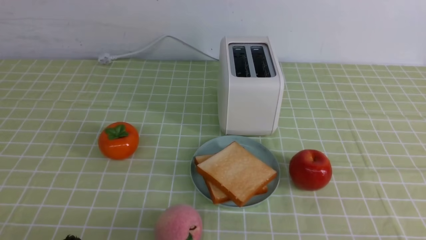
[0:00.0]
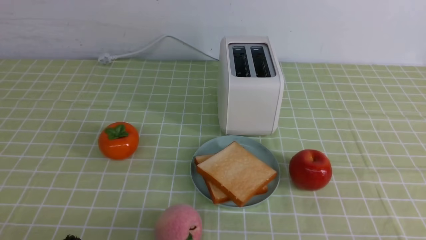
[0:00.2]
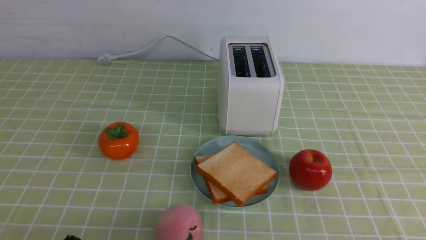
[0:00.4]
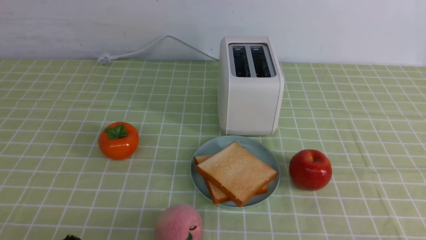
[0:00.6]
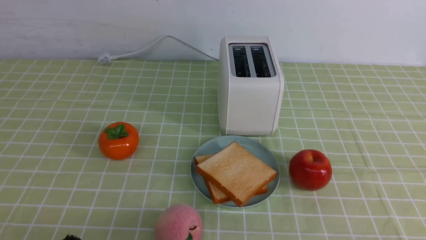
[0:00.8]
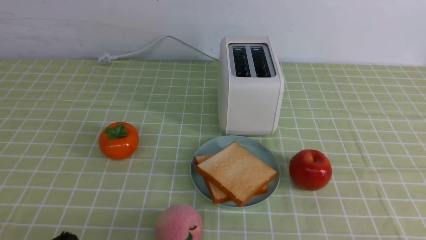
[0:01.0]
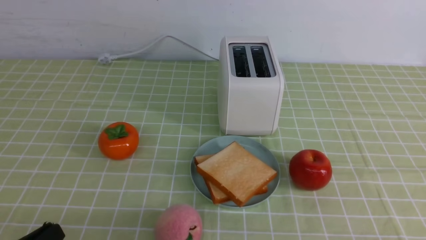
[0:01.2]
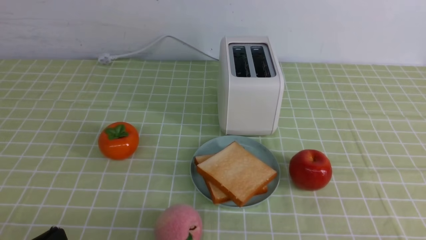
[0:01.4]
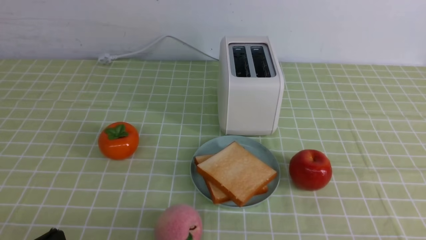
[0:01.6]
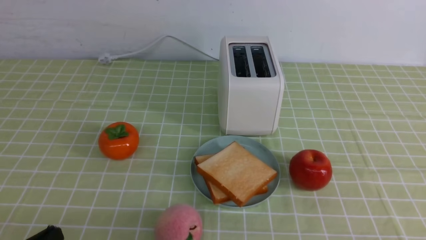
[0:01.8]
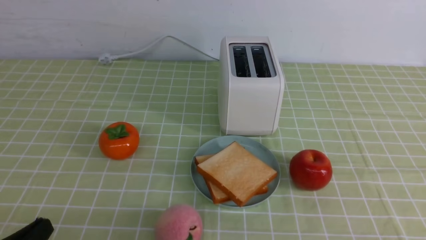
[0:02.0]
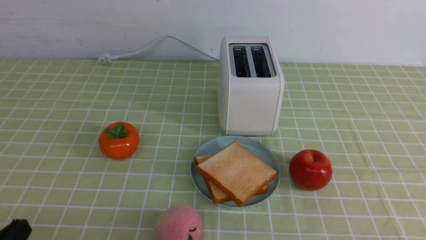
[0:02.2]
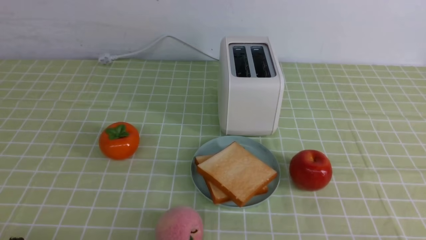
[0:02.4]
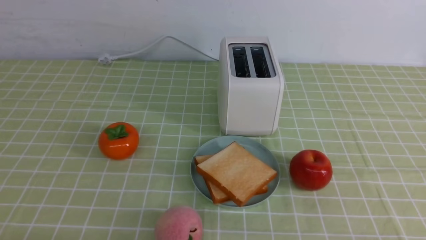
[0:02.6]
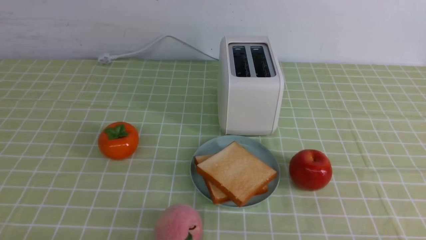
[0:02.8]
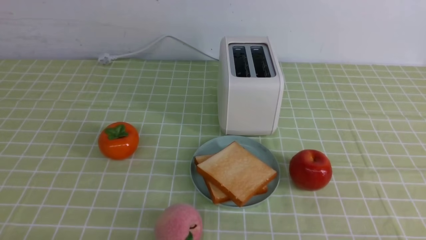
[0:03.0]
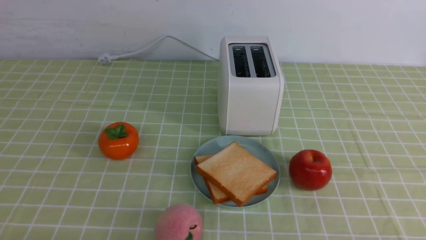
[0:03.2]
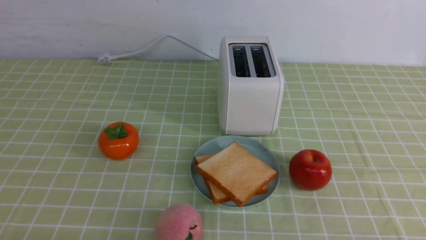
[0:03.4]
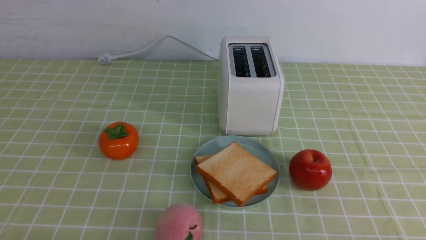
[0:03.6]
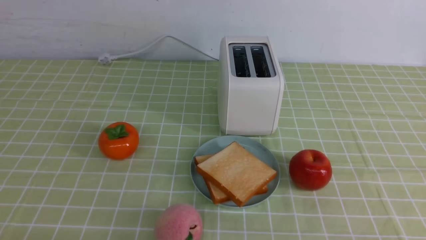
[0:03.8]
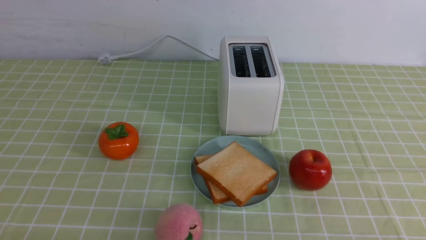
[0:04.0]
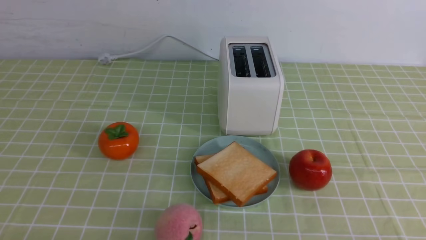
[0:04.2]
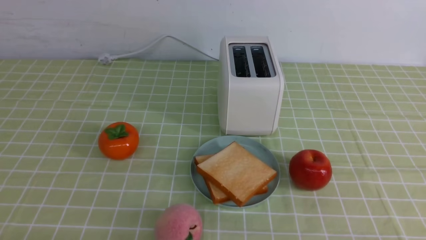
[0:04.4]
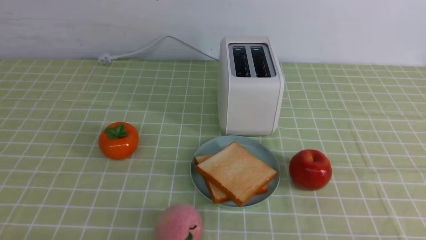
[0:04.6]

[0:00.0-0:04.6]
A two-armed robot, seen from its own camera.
Task of the whole recording: take toasted bread from bread machine on green coffee tablecloth place on plate.
0:03.0 to 0:04.6: The two grippers keep their place.
